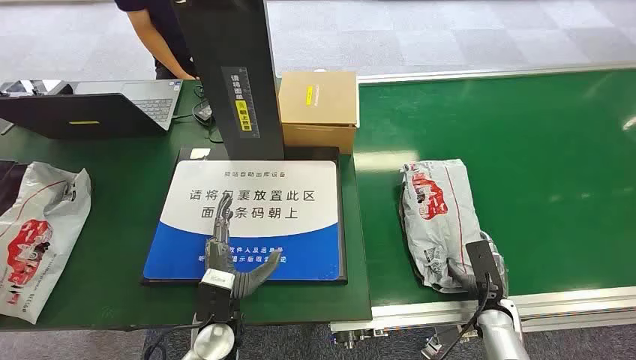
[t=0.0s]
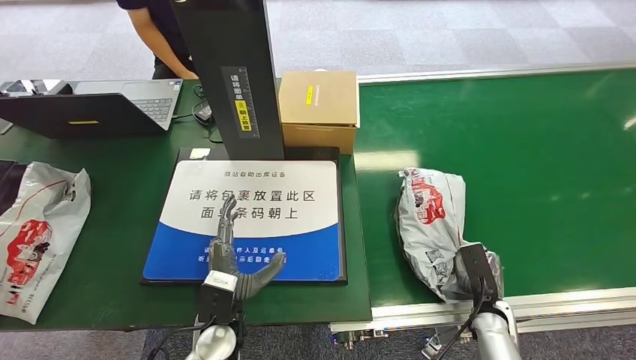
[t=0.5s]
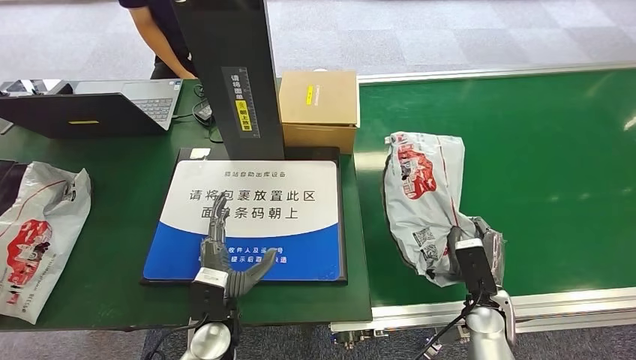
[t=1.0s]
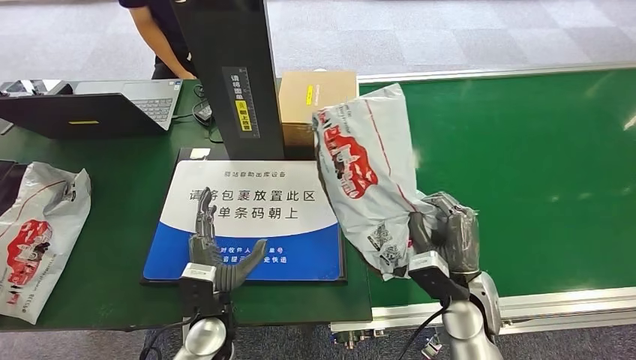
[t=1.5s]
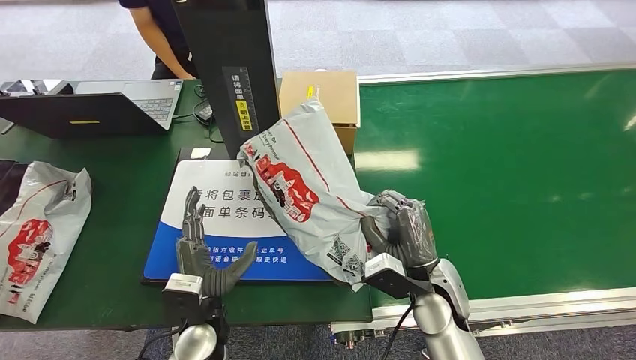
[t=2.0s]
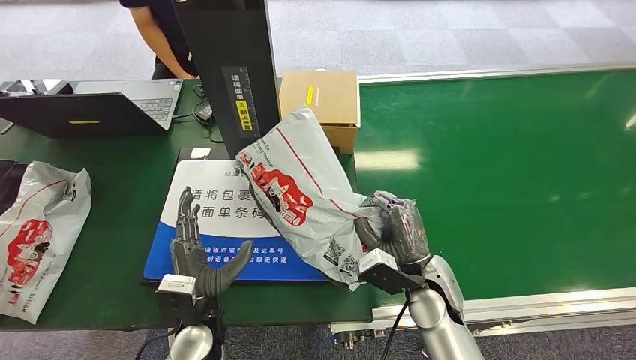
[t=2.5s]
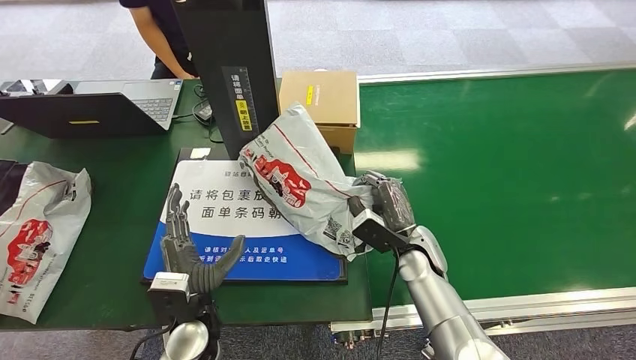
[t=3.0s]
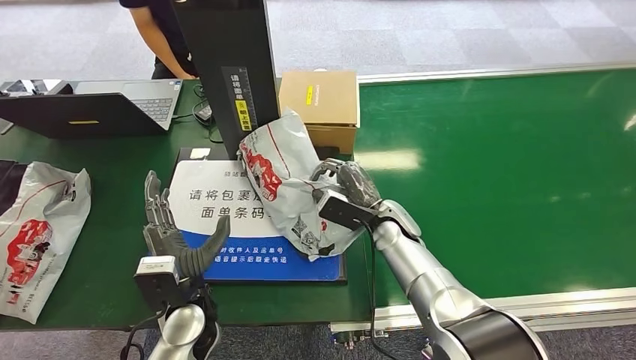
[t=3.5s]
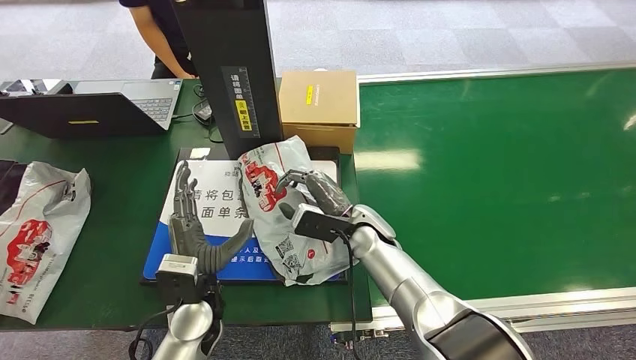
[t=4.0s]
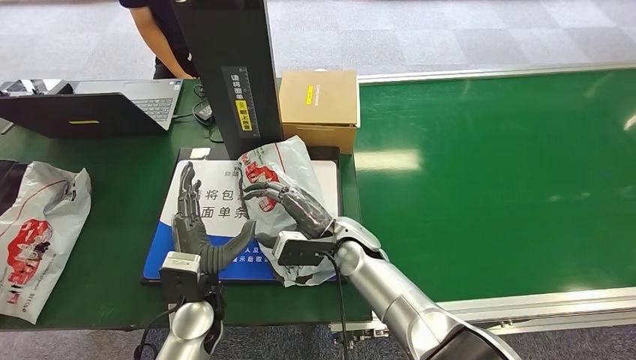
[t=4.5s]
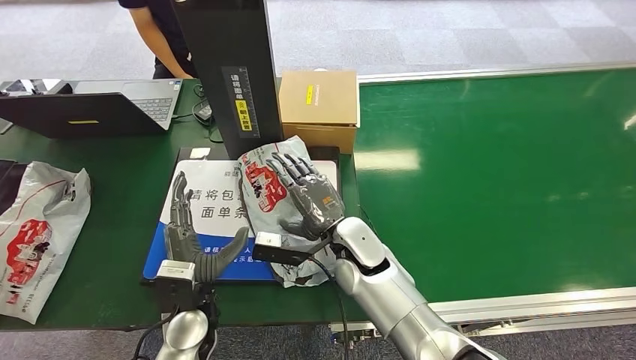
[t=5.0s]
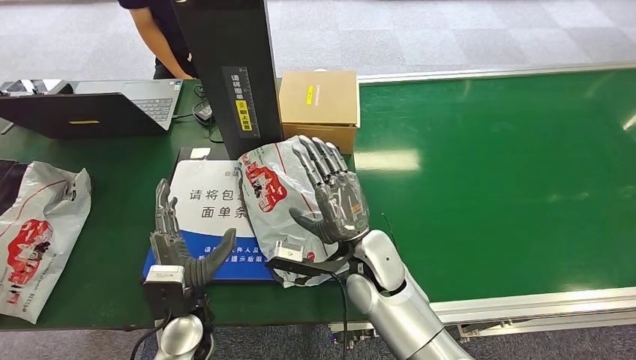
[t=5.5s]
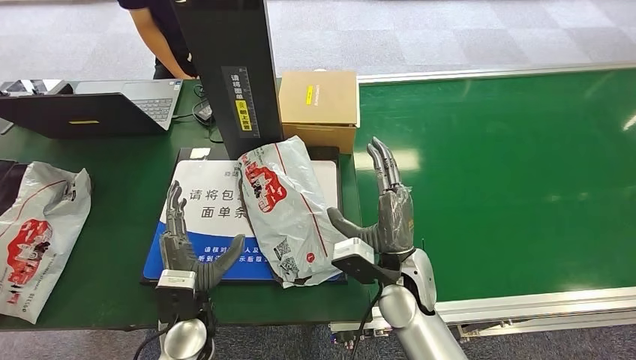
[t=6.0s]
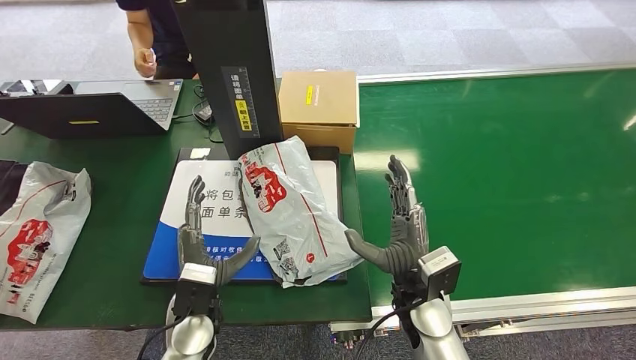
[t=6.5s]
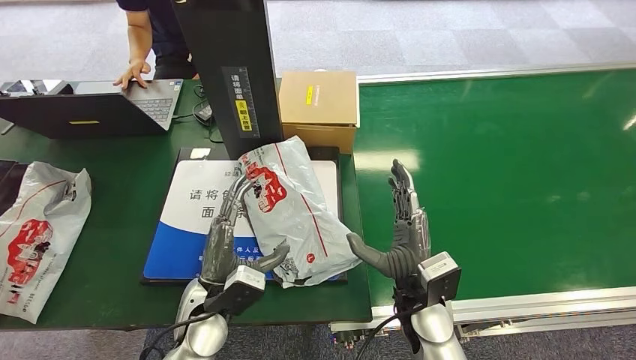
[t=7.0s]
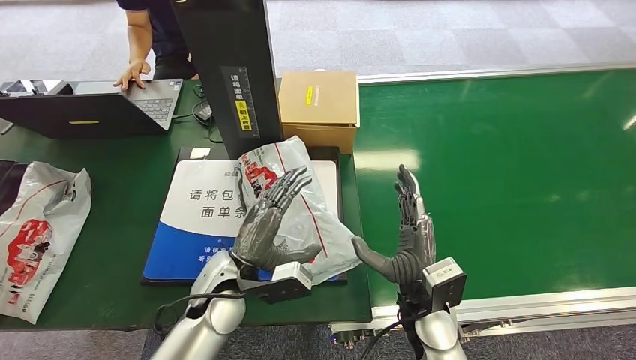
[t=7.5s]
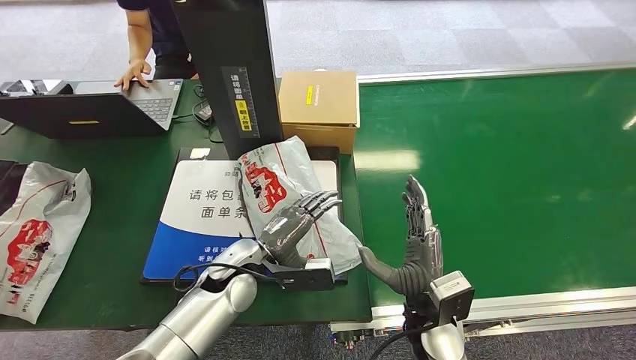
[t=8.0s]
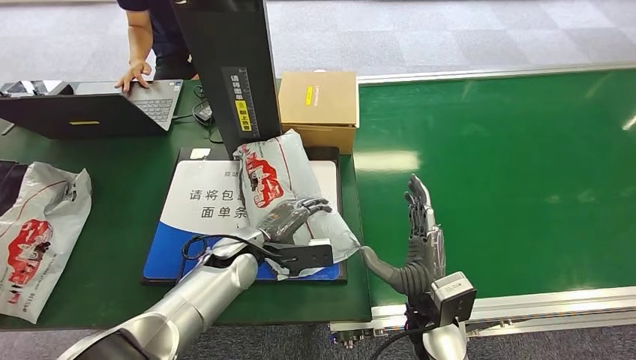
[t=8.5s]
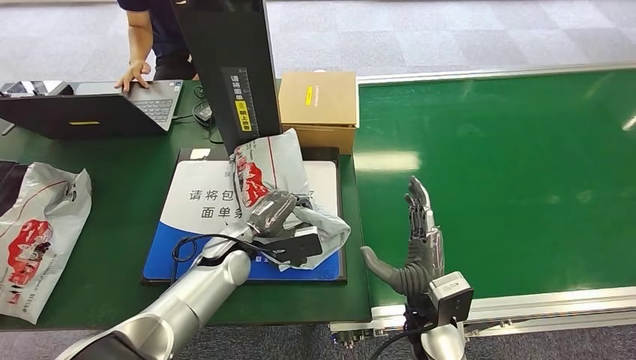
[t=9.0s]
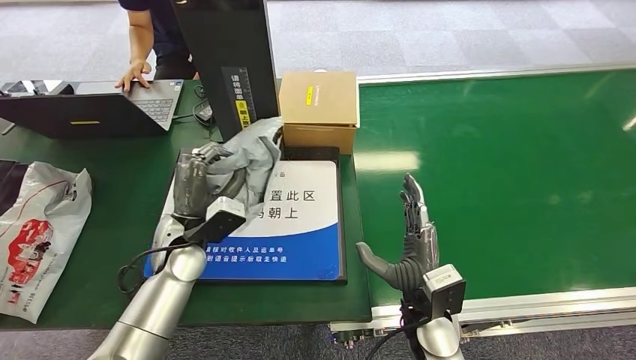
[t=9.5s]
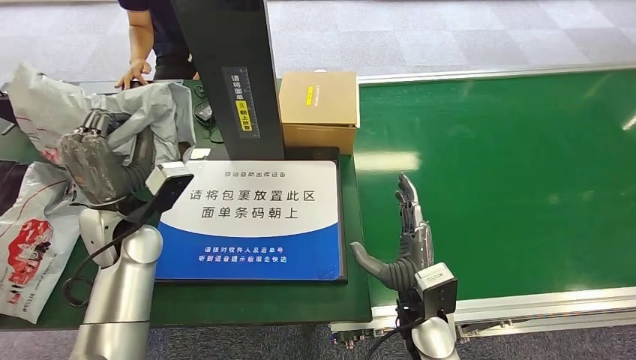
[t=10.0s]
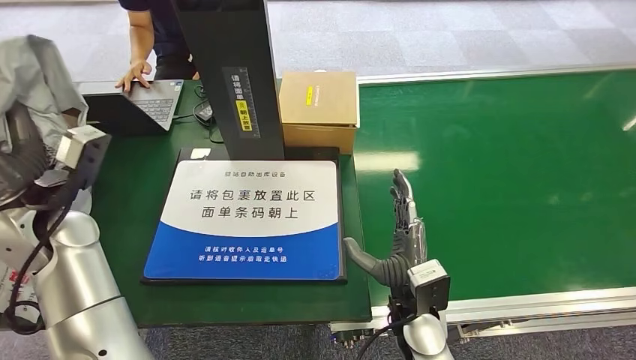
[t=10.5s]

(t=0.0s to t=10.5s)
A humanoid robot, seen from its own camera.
Task of the whole recording: Weigh the package on the weighing device and place it in the left basket.
Step, t=0.0s - t=1.0s: Pick up the package from the conveyor belt.
Step, t=1.5s - t=4.5s: Place the package onto the inbound machine.
Step, t=5.0s - t=9.0s: Pick up the package from the inbound machine.
t=2.0s - t=4.0s: The right hand moves forward and to the left, some 15 cm.
t=4.0s - t=6.5s: The right hand is displaced backward and to the right by roughly 15 cm.
t=6.5s - t=8.5s: The left hand goes approximately 10 cm forward.

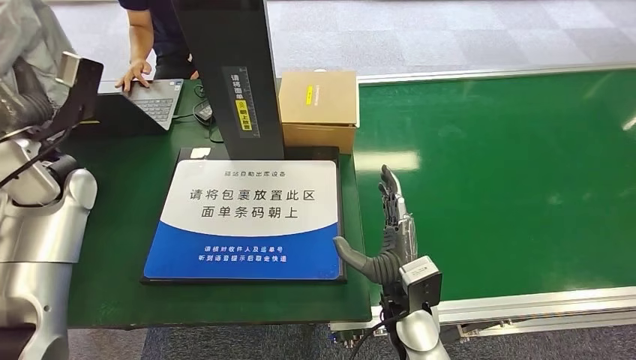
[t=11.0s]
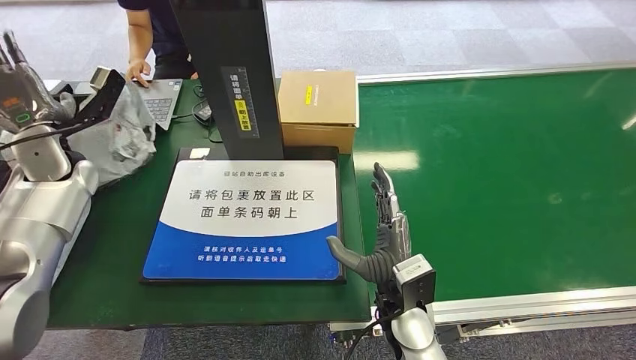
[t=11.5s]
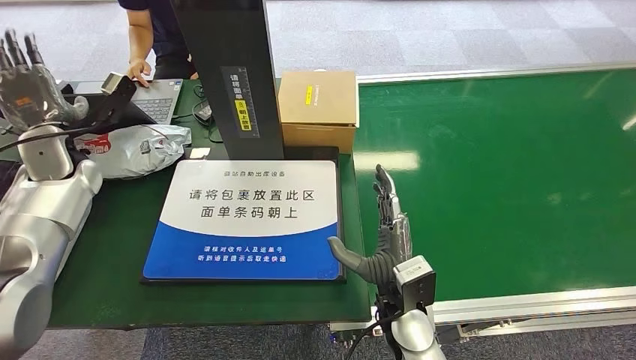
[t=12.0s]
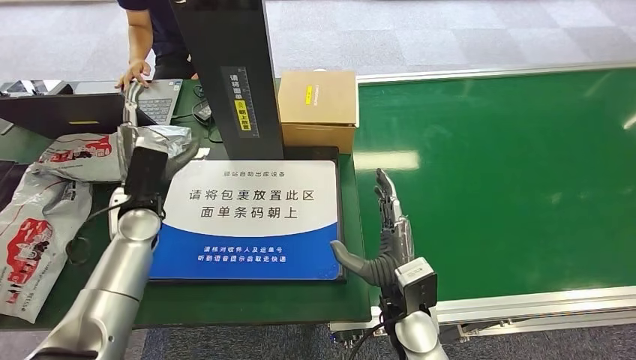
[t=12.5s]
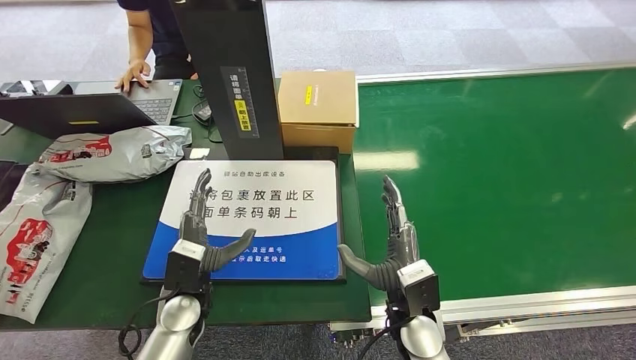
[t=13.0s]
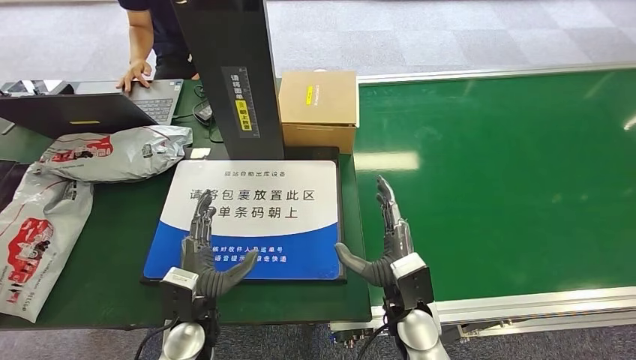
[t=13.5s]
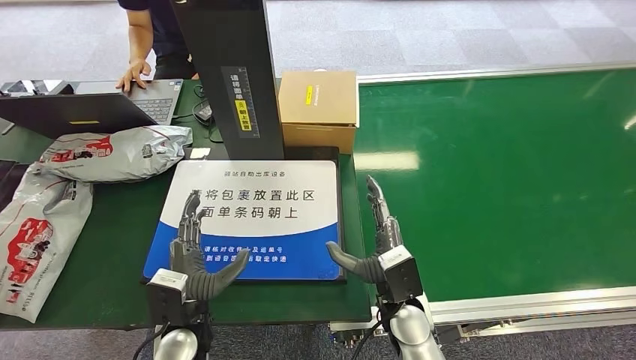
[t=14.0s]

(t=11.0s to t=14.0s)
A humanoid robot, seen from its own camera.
Task of the whole recording: Weigh the package on the weighing device and place it in the left basket.
Step, t=11.0s - t=13.5s: Place the package into the parcel locker.
t=11.0s - t=12.5s: The left hand is displaced downward and to the right by roughly 15 cm.
t=12.5s - t=14.0s: The left hand is displaced backward, to the right and downward by approximately 20 cm.
